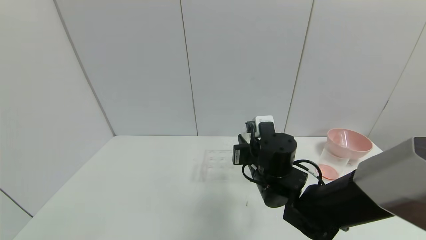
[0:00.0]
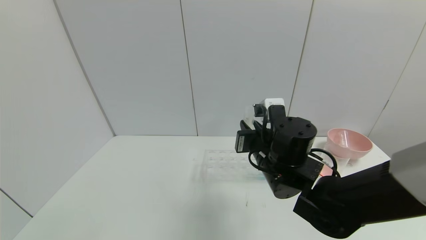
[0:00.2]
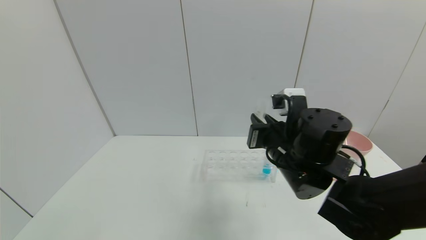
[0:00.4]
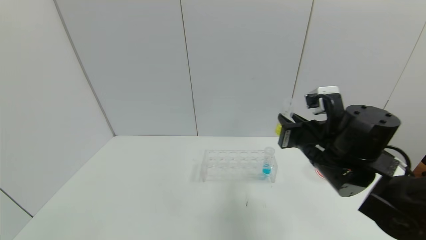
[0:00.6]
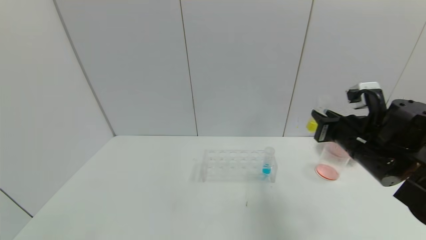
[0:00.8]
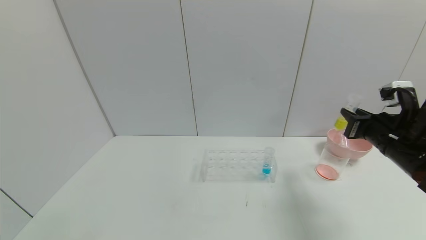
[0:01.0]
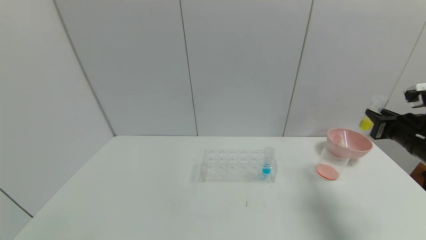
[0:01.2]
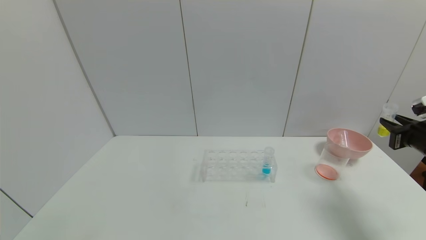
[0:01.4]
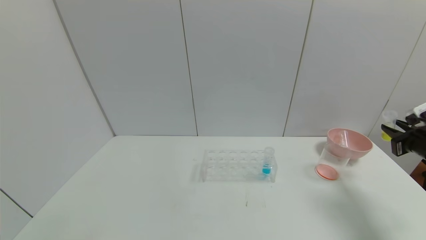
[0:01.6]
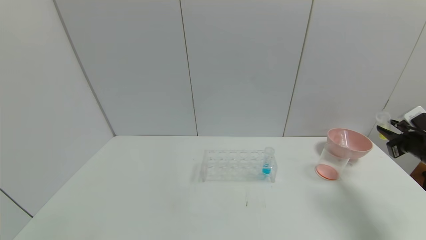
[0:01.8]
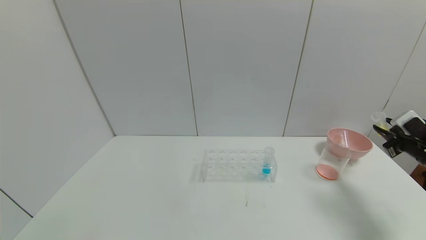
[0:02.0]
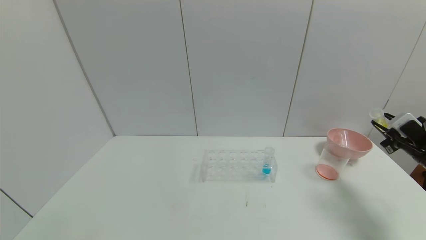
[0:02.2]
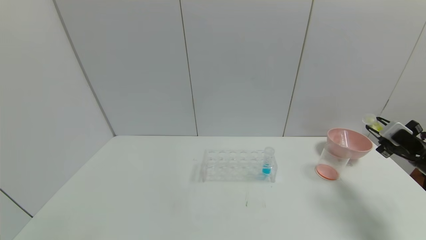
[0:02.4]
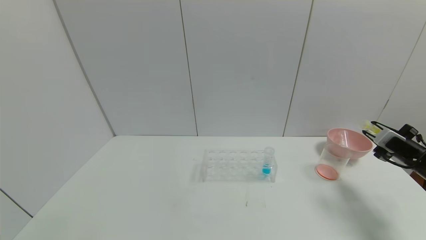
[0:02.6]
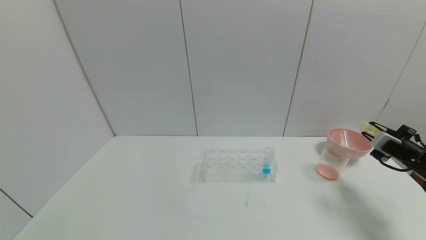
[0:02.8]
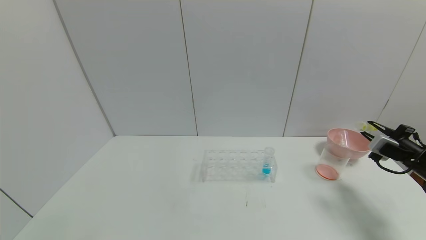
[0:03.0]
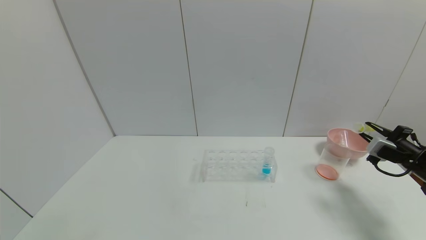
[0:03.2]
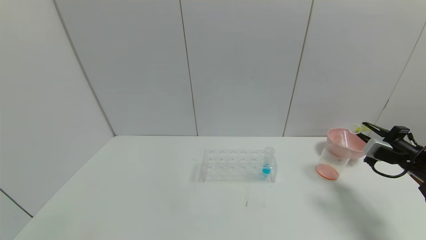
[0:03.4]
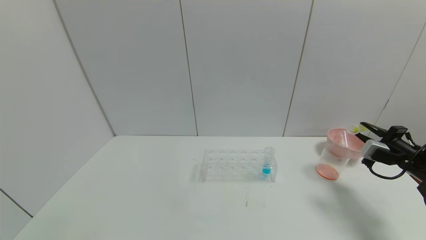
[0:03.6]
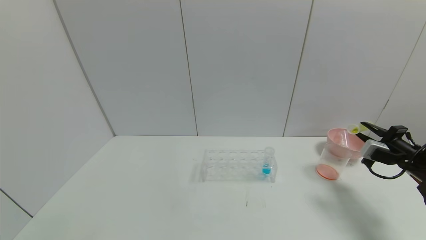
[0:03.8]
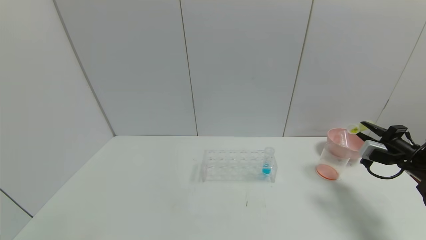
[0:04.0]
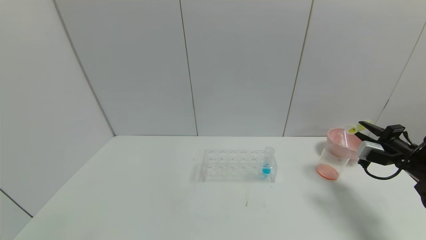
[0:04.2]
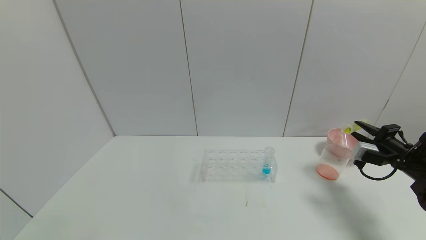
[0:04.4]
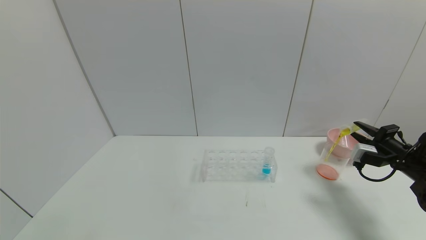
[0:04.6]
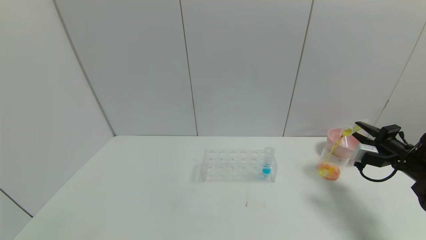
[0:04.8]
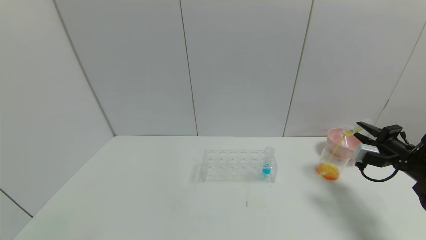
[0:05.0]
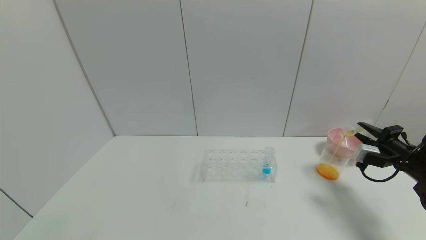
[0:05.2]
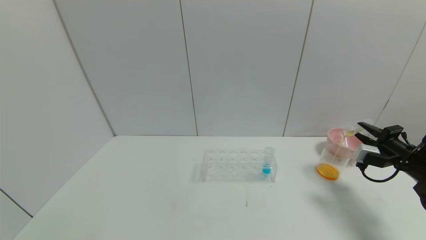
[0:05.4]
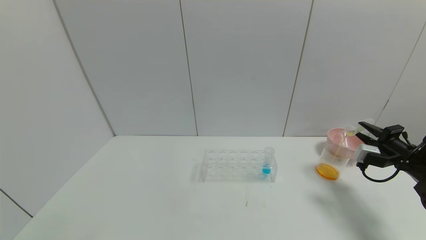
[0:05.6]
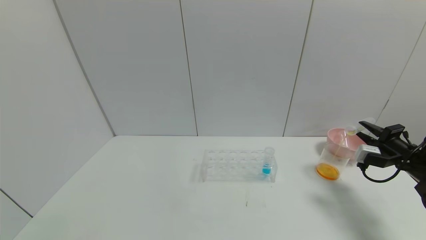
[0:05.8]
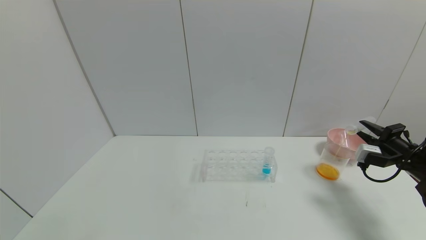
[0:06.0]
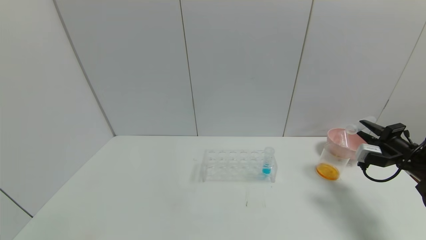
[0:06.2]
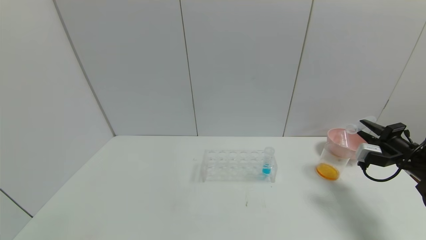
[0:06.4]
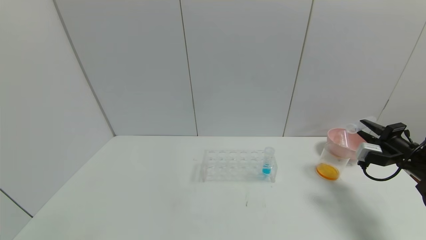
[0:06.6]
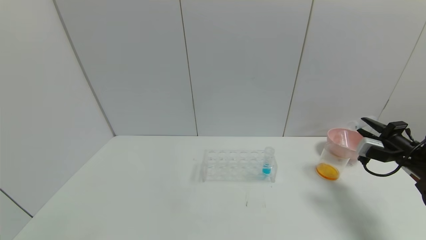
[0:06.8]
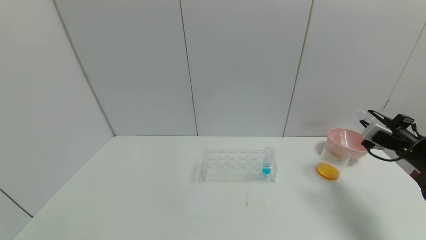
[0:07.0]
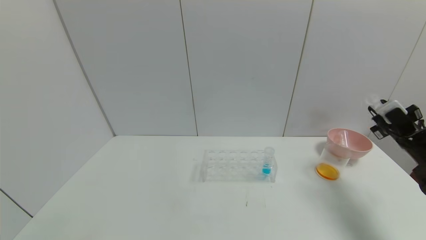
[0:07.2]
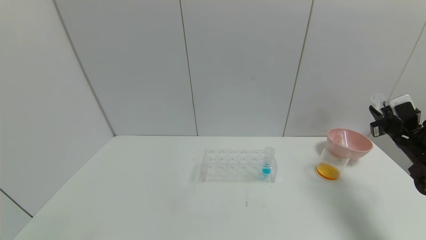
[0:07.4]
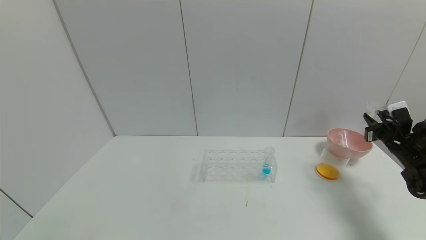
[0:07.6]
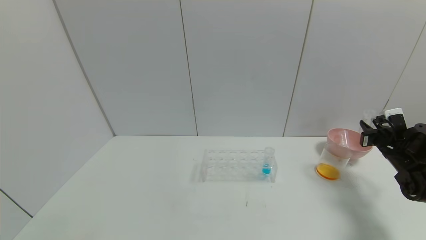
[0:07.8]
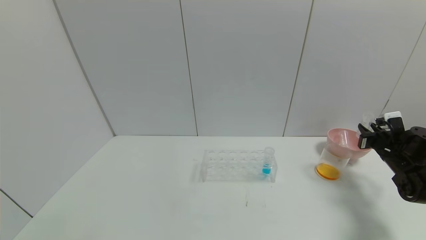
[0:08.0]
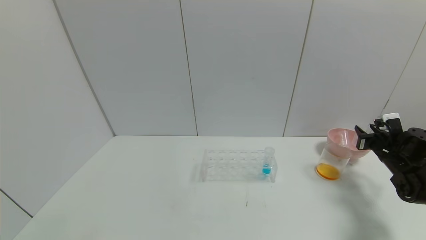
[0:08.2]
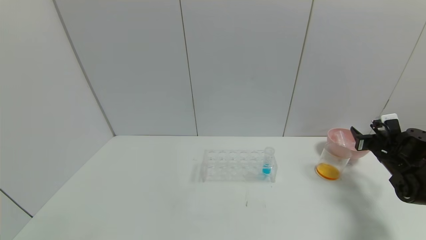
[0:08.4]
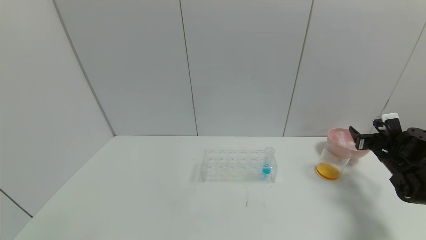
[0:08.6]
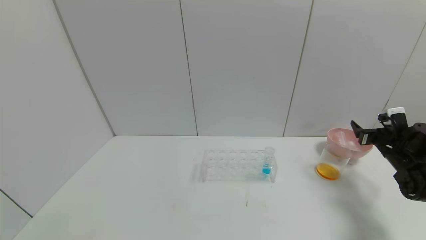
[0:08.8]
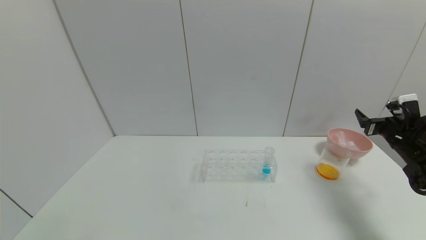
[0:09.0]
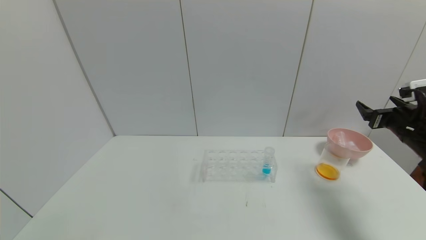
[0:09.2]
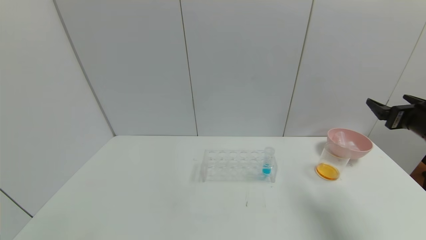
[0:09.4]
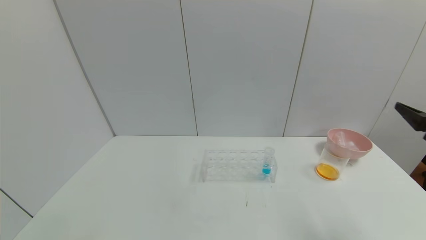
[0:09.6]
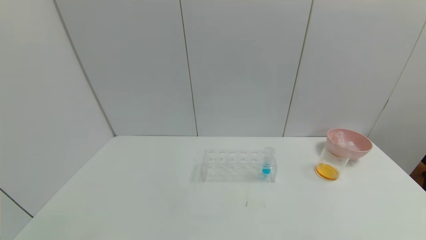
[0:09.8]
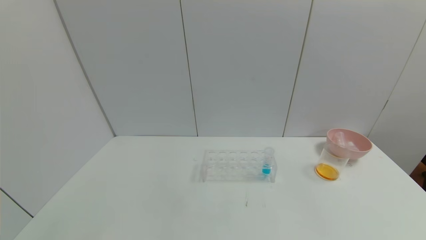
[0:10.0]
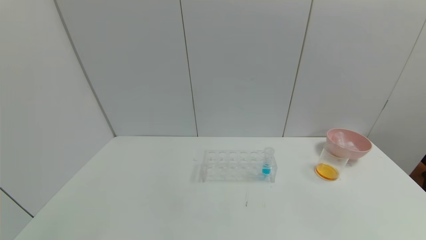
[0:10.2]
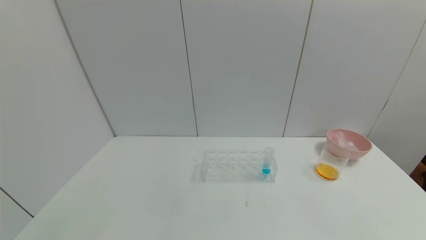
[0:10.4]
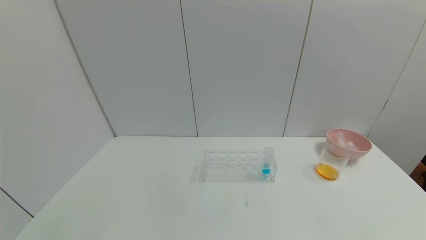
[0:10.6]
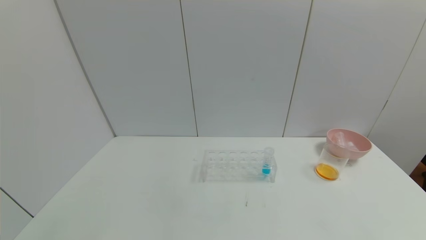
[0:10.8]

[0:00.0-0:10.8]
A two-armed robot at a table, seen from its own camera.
Task of the whole recording: pick up the test tube with yellow pigment and the test tube with red pigment by grippers and pour them into the beaker.
Step, 0:01.0 to 0:07.8: Pour the yellow reagent into the graduated cylinder with right gripper.
Step, 0:08.0 to 0:09.8: Place the test tube into the bowl with right gripper.
0:00.0 to 0:01.6: The right gripper is displaced to the right by approximately 35 cm.
0:01.6 to 0:03.0: The right gripper shifts by about 5 cm.
0:03.0 to 0:04.6: The grippers make only small movements.
0:04.6 to 0:06.2: Both grippers stay put.
0:06.2 to 0:07.8: The right gripper shifts by some 5 cm.
0:07.8 to 0:09.2: The right gripper moves upward, approximately 10 cm, and opens.
0:09.2 to 0:10.8: The right gripper heads backward, covering about 35 cm.
